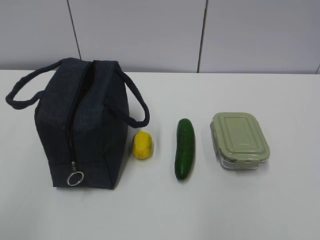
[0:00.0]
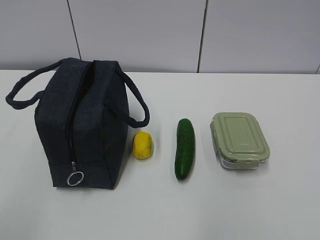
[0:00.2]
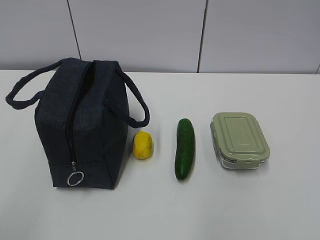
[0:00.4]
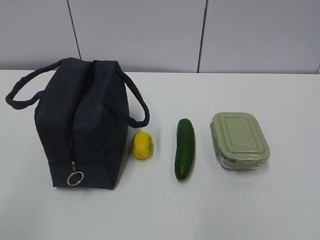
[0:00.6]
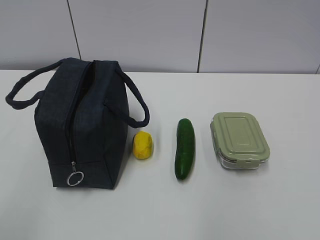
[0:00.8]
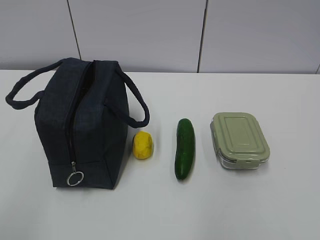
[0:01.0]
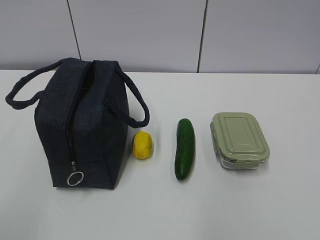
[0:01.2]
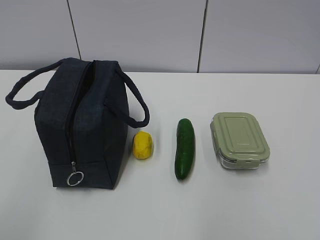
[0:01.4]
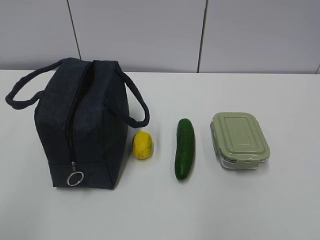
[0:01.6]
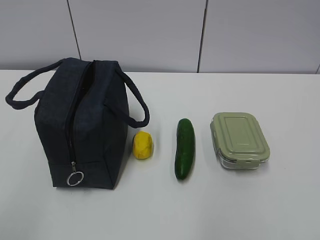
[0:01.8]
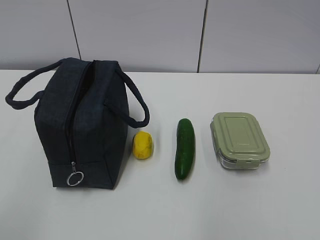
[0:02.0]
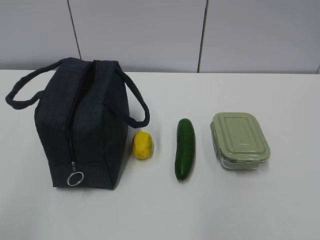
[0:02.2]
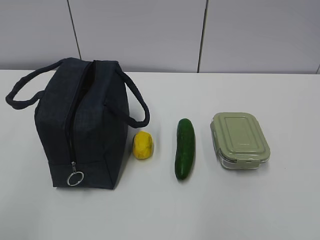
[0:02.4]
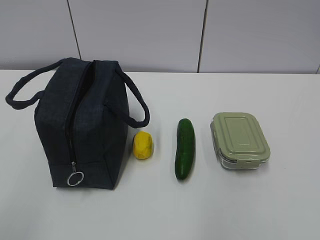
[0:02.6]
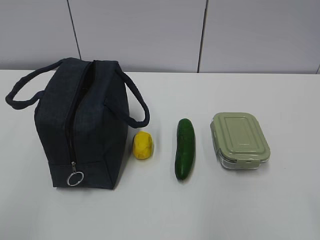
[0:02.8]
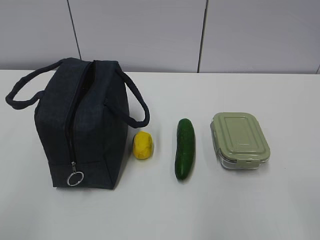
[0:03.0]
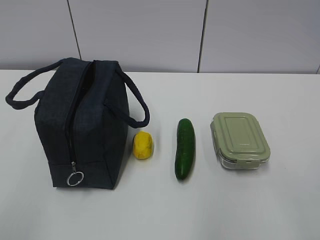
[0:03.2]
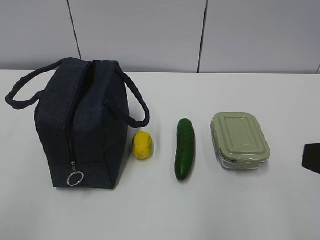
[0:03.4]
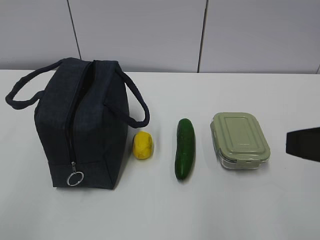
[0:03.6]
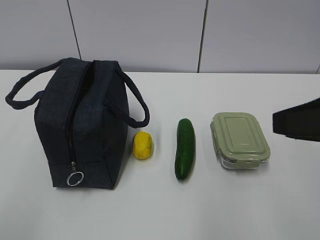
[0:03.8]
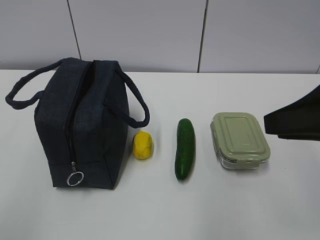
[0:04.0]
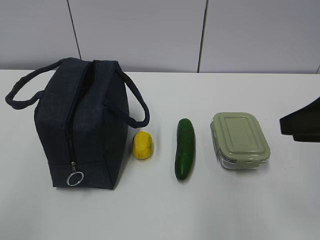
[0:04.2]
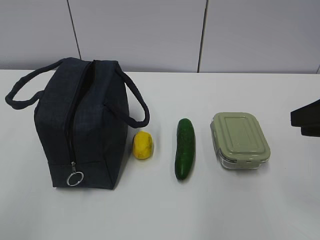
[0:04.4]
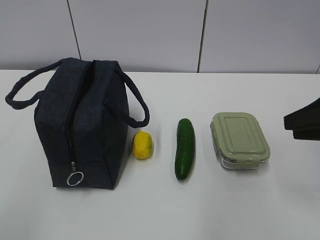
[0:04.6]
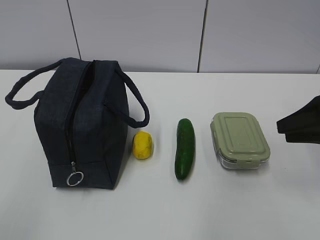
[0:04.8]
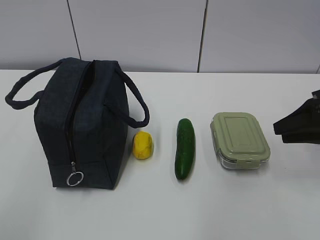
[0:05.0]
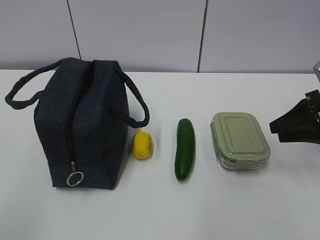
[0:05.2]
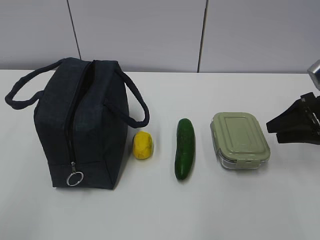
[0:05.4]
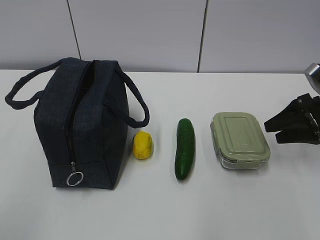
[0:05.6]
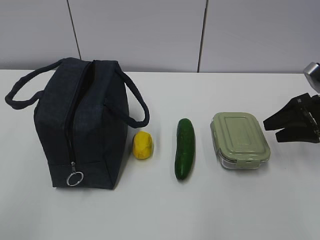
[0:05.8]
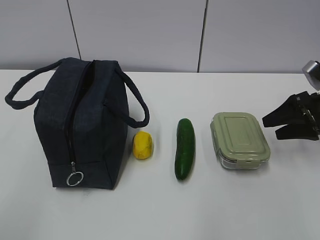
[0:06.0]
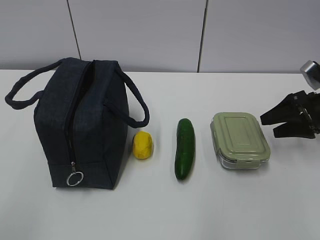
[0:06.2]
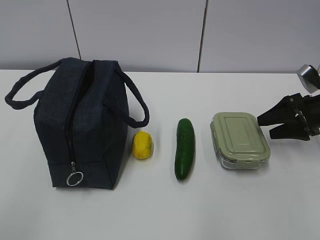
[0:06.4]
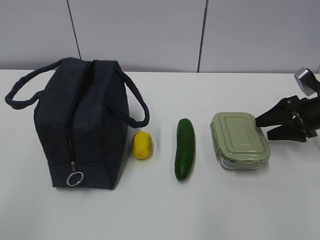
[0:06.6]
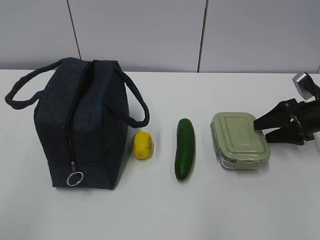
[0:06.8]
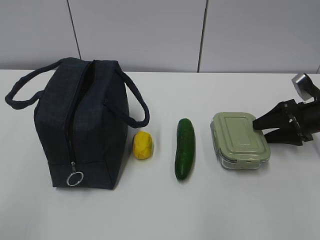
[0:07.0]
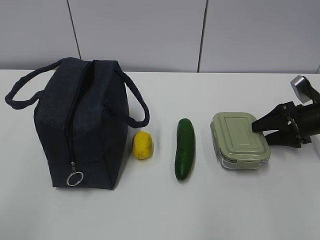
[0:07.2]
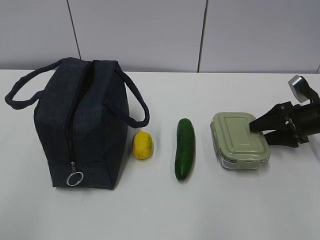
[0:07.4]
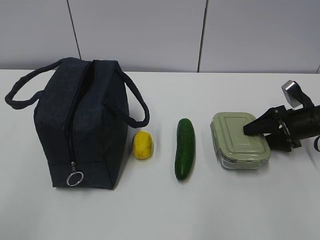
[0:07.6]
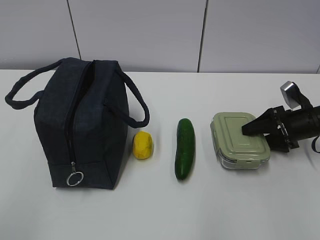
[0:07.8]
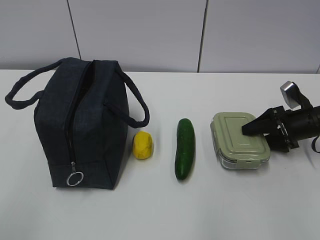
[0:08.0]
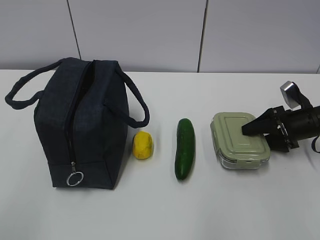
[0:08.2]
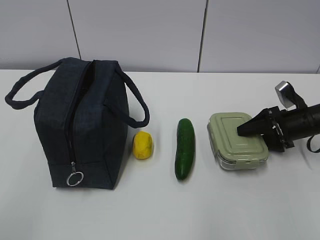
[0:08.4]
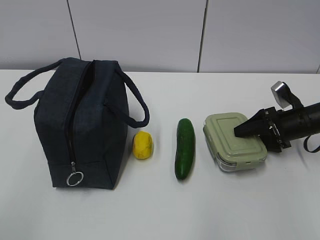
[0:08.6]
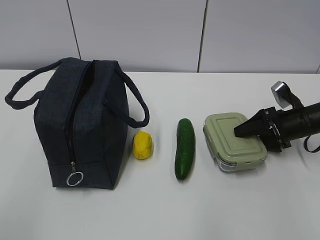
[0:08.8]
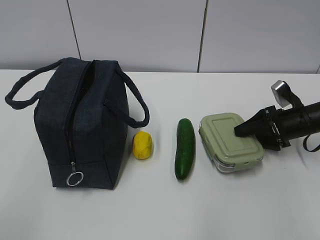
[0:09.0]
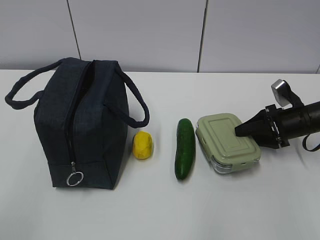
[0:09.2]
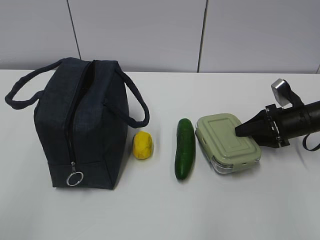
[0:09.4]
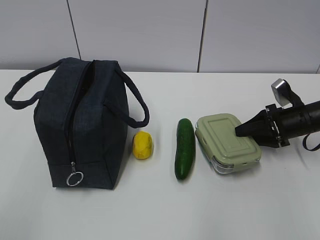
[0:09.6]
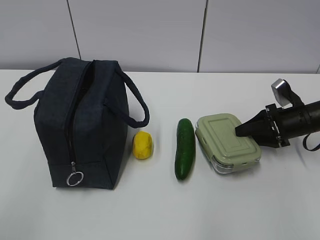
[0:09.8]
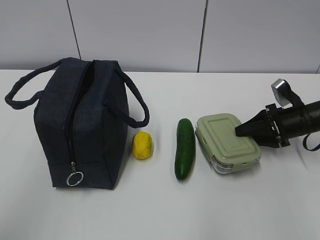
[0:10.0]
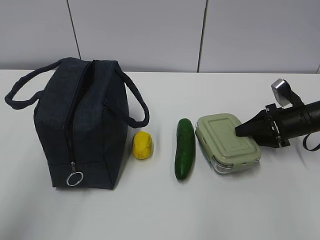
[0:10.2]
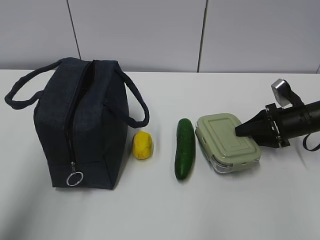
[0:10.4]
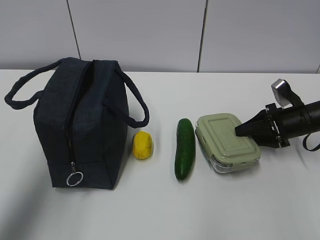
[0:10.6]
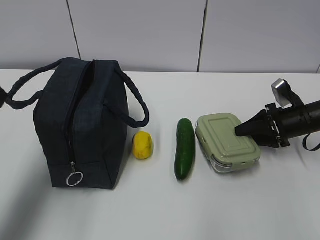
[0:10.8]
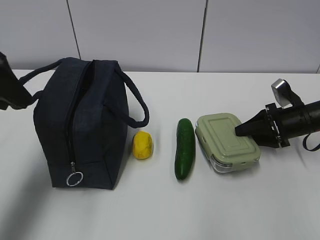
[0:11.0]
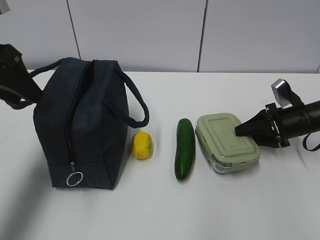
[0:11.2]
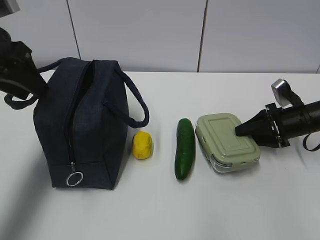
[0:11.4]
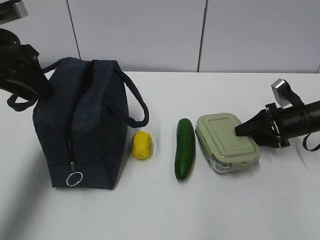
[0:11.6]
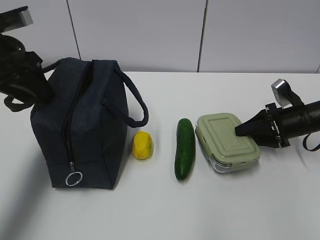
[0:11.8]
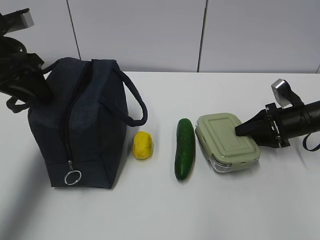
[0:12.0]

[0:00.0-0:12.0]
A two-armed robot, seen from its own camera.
Step, 0:00.0 to 0:11.2: Grab the lunch box with your right hand.
0:03.0 to 0:04.4: The right gripper shifts roughly 20 cm forward.
0:04.4 to 0:06.0: The right gripper shifts approximately 20 cm forward, downward and to the right, and opens.
0:06.0 to 0:07.6: The right gripper is displaced downward by roughly 5 cm.
0:07.6 to 0:09.0: The grippers stay close to where they were, moving slightly.
0:09.0 to 0:10.4: The left gripper shifts about 15 cm forward and upward.
0:10.4 to 0:12.0: The left gripper heads forward and downward, covering approximately 20 cm.

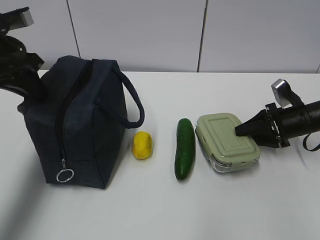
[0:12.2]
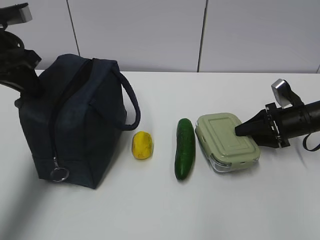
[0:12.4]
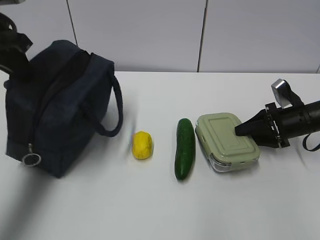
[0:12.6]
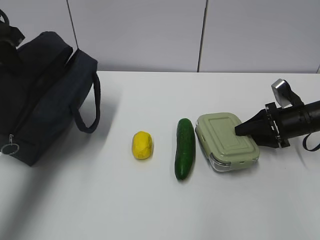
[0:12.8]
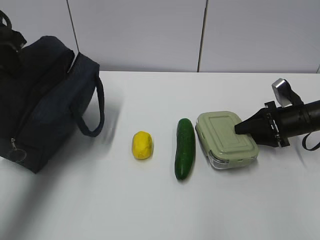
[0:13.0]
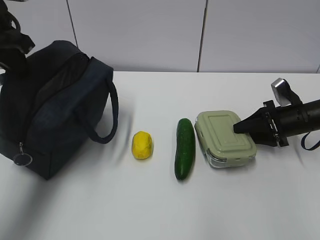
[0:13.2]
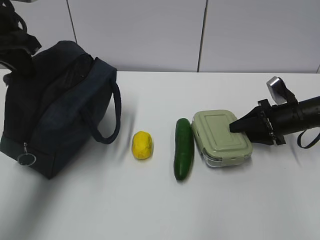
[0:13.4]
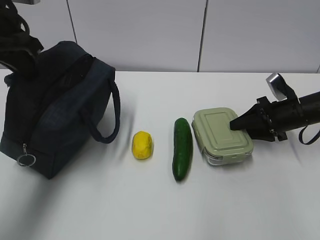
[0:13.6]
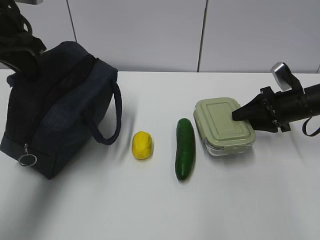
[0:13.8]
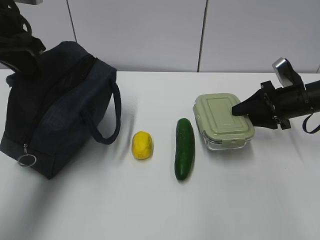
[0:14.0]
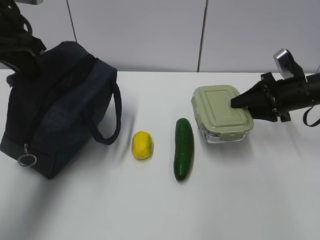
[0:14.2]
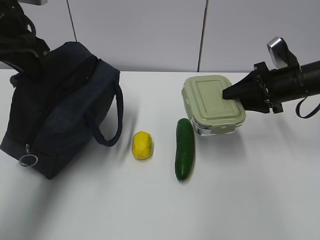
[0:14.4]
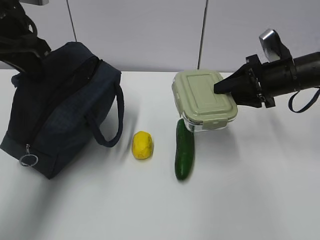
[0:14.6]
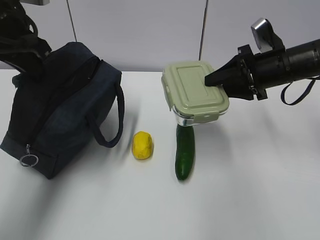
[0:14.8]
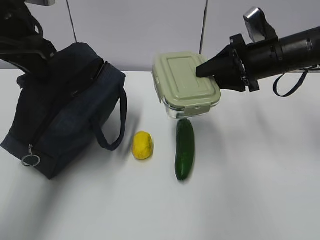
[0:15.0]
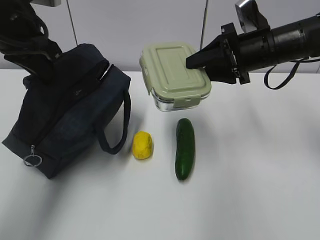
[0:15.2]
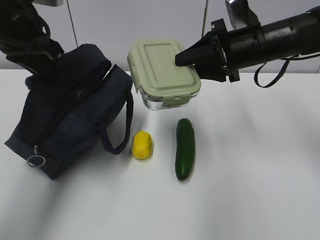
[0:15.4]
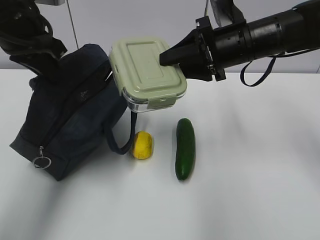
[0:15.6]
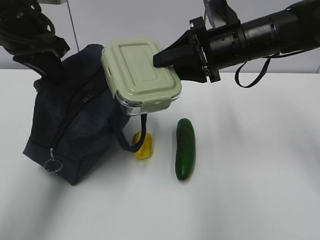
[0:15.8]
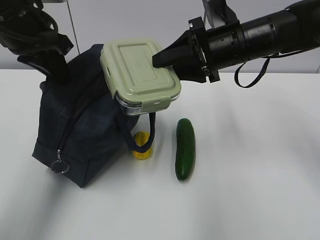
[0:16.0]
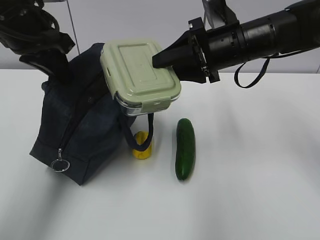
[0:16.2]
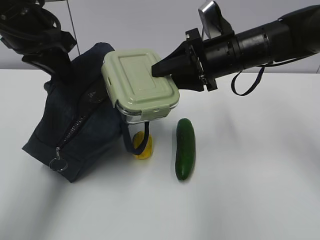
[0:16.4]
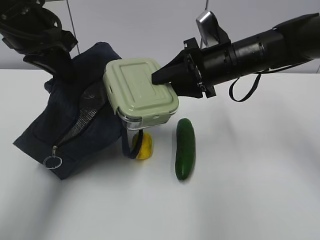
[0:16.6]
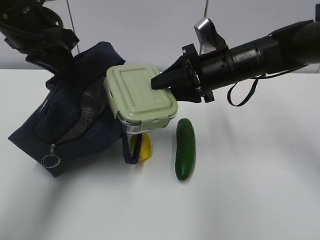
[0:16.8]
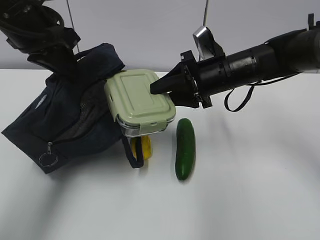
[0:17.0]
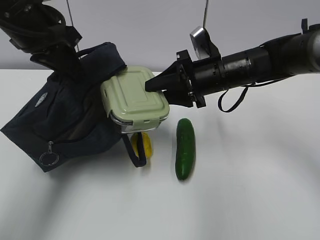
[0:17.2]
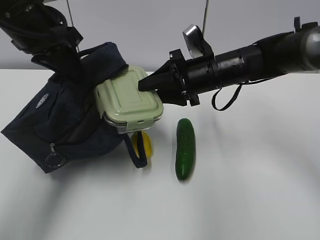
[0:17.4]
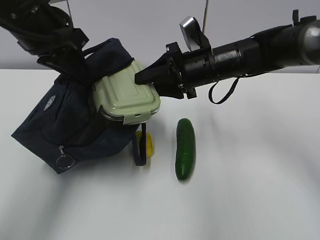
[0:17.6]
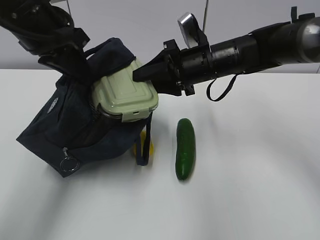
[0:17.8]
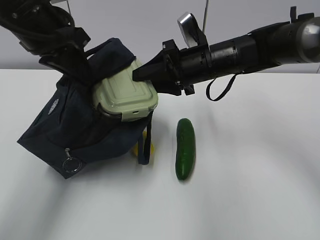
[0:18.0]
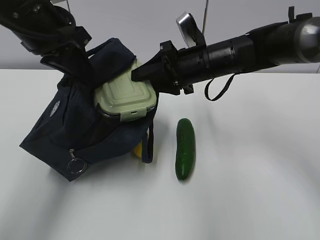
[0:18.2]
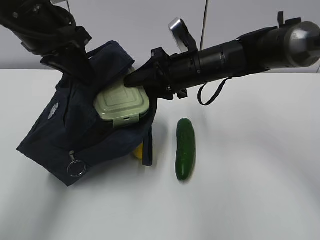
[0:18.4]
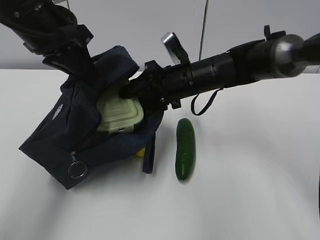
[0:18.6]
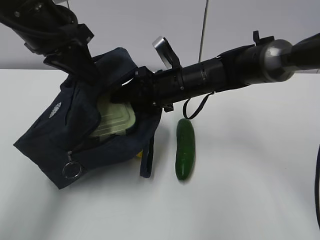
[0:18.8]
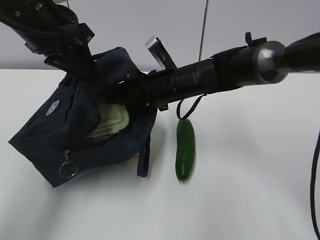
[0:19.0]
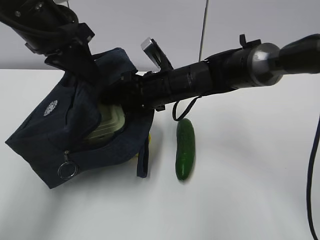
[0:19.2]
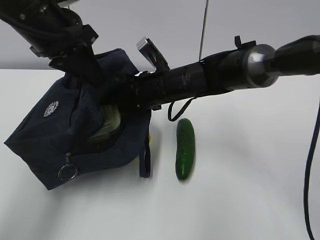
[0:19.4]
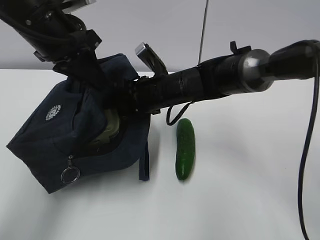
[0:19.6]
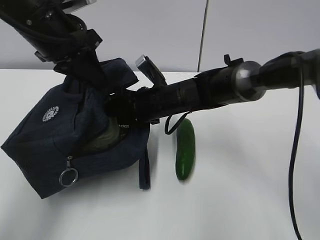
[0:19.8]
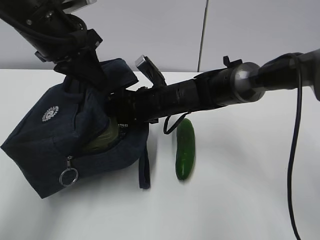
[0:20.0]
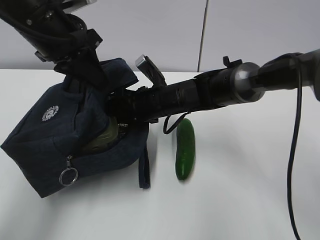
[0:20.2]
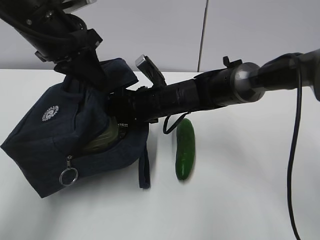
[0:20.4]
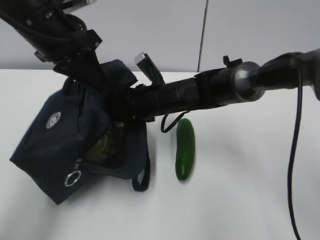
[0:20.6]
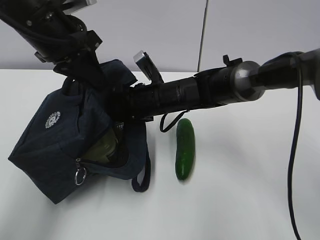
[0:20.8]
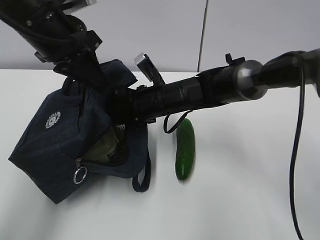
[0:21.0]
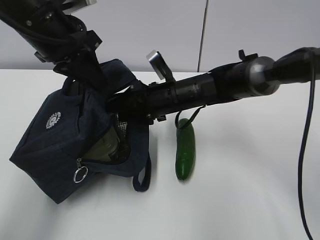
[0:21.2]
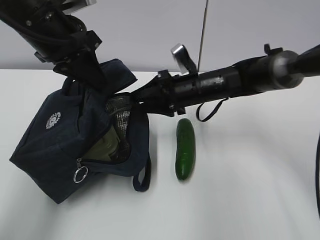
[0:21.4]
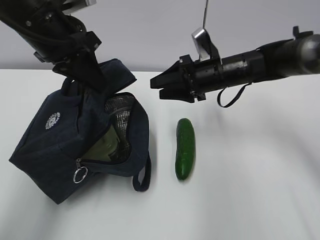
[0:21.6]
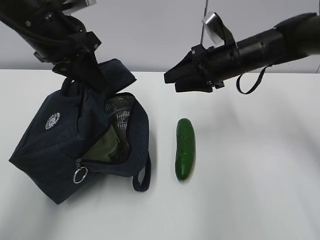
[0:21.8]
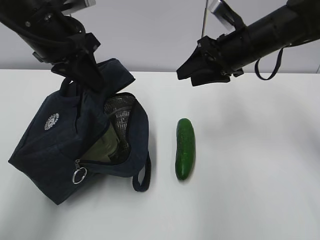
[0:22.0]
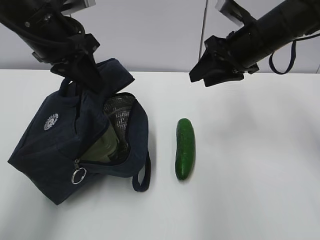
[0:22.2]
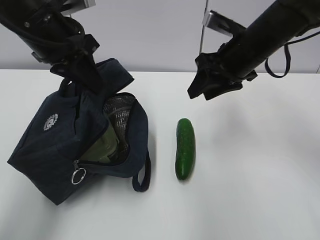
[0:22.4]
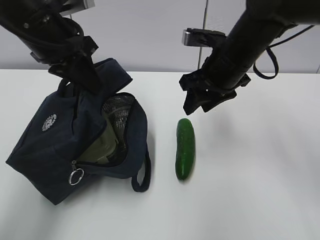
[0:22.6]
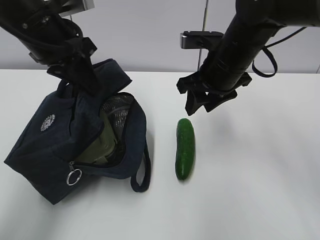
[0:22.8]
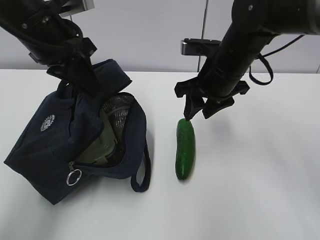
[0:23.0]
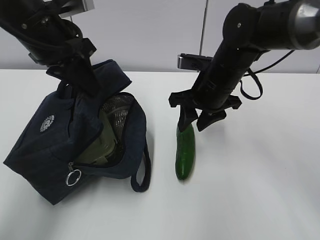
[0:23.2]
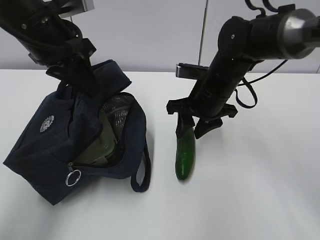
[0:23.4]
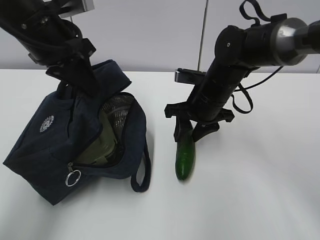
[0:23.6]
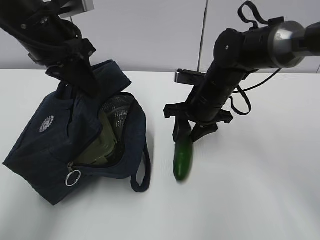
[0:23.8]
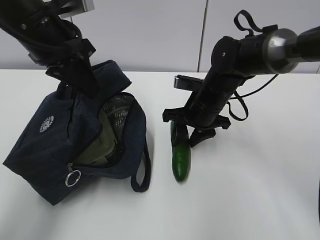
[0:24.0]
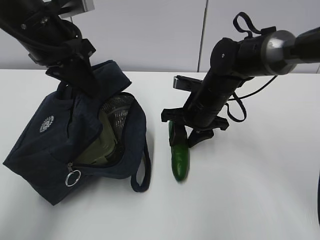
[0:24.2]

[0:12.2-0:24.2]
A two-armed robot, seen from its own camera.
Step, 0:12.2 to 0:13.4: Grab the lunch bag with your left hand.
Step, 0:13.6 to 0:17.2: Place it into the bag with your right hand.
Step, 0:17.4 to 0:21.0: Grab the cucumber with your right hand.
0:13.8 to 0:15.2: The right gripper travels upward and to the left by approximately 15 cm.
0:15.2 to 0:16.6: The right gripper heads to the left, covering some 5 cm.
0:16.6 to 0:18.2: The grippers make only small movements.
0:18.2 to 0:19.8: The right gripper moves downward and to the left, roughly 10 cm.
0:19.8 to 0:21.2: There are only small adjustments of the grippers.
0:21.2 to 0:22.6: The right gripper is displaced upward and to the right by approximately 10 cm.
0:22.6 to 0:24.2: The right gripper is displaced downward by approximately 10 cm.
